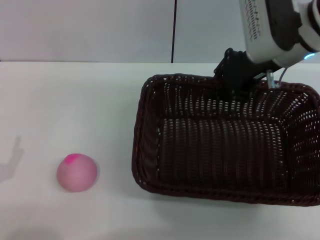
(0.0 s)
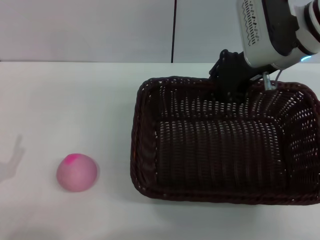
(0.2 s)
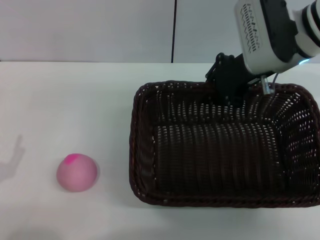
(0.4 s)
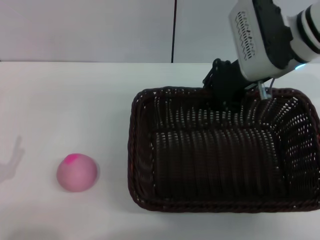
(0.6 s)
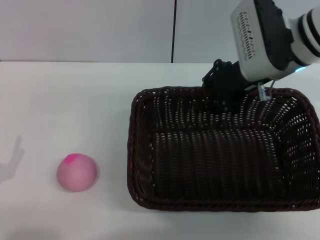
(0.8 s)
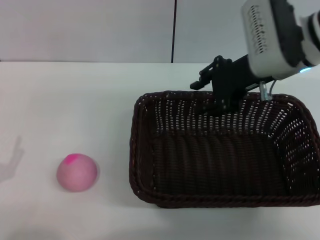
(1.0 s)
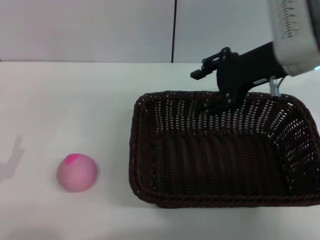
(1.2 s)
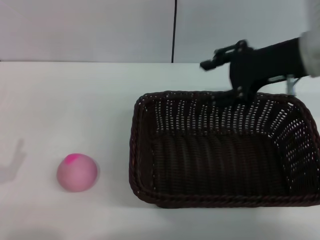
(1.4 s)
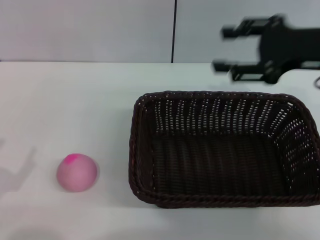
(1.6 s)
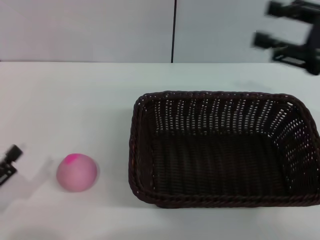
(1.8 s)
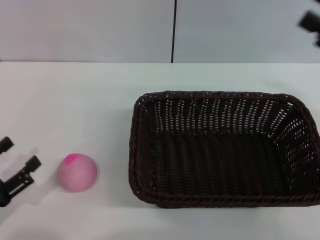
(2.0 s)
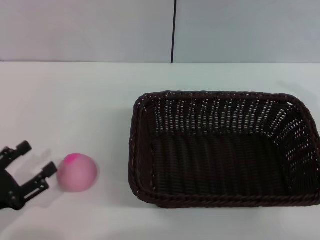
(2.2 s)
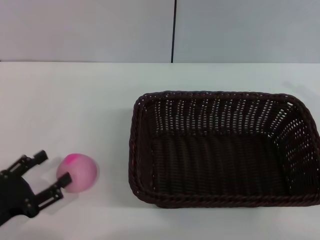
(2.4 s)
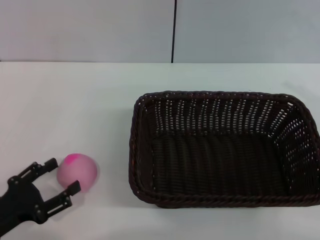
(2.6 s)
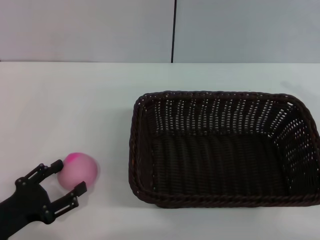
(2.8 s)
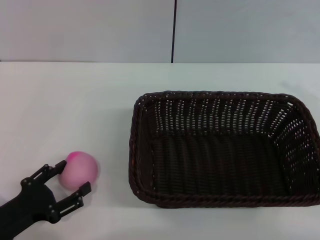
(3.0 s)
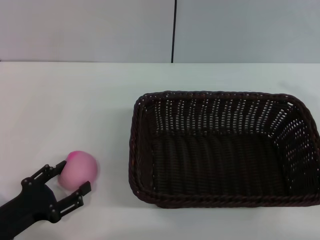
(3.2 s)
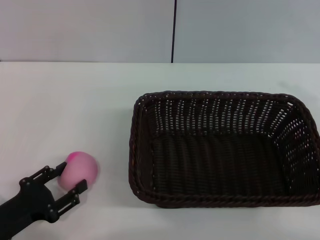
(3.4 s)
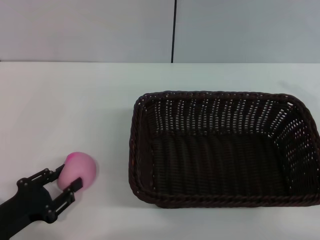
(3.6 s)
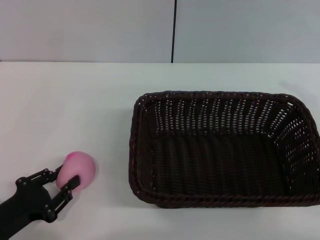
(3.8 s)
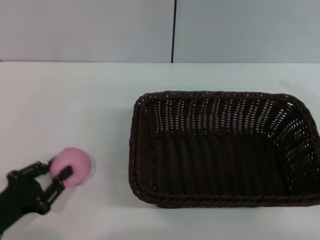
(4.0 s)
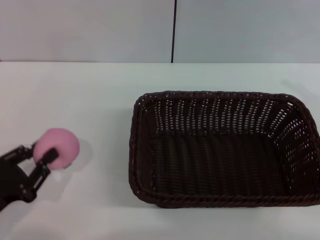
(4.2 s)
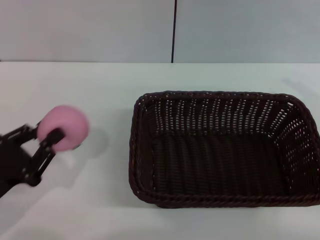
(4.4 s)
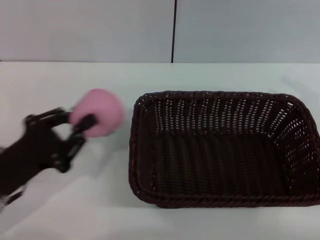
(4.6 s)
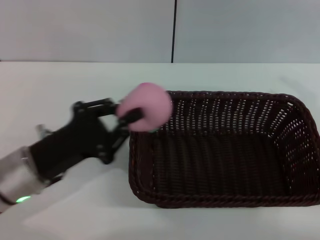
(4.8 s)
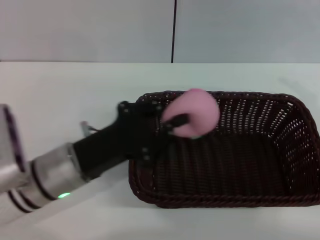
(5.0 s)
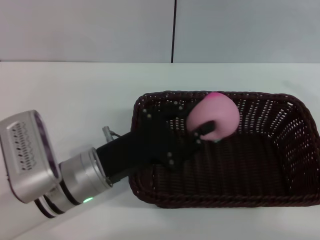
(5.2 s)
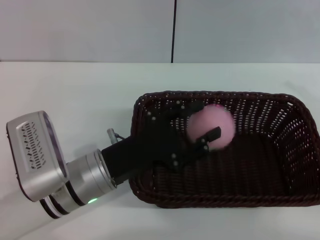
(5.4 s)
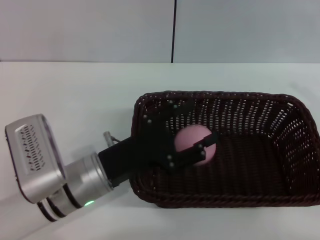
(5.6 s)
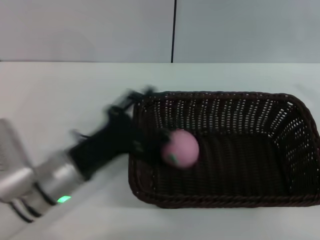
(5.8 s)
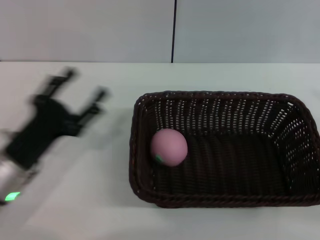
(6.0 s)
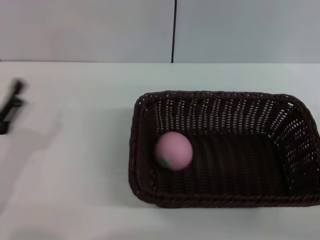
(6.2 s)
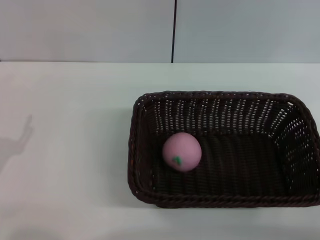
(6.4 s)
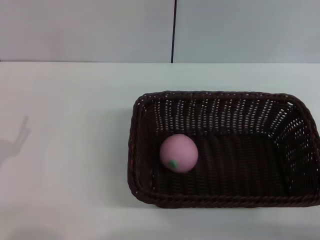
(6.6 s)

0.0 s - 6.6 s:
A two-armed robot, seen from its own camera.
Step, 0.0 s - 1.2 s: Place the dark basket in the center of view with the right gripper.
Step, 1.4 s - 4.2 s: Pick up the peach with the left gripper.
Step, 4.6 s - 5.6 s: Place the peach into the basket with the left gripper.
0.0 s - 1.6 s: The right gripper goes about 10 cm to the right and backward, and opens its fingers.
1.6 s - 3.2 s: The left gripper ends up about 5 cm from where it was. Meanwhile the right gripper is displaced to the right, downward and backward by roughly 15 cm.
3.2 s - 5.0 s: The left gripper heads to the right, forward and upward, covering roughly 15 cm, and closes up.
5.0 s - 6.6 s: The right gripper shifts approximately 10 cm backward and downward; the left gripper heads to the left and backward, covering some 20 cm, and opens up.
